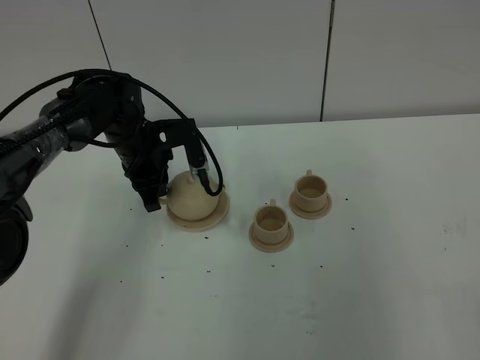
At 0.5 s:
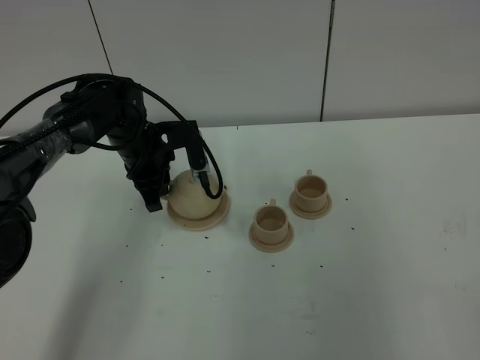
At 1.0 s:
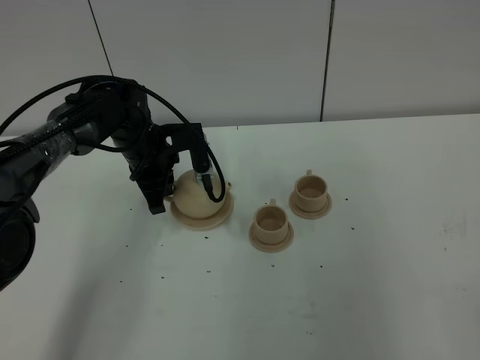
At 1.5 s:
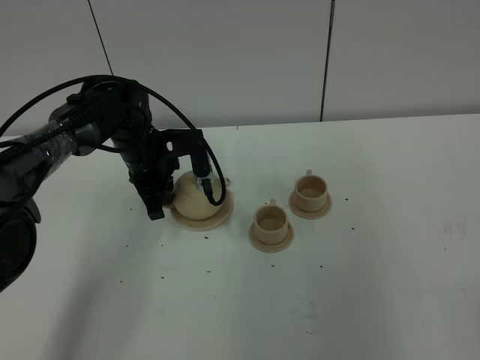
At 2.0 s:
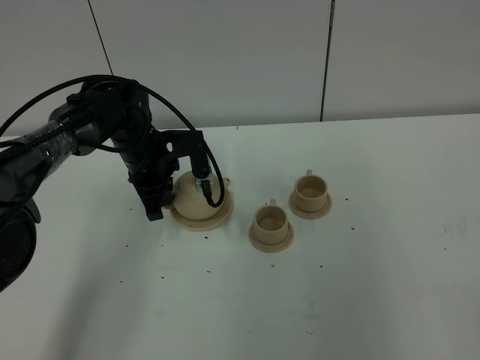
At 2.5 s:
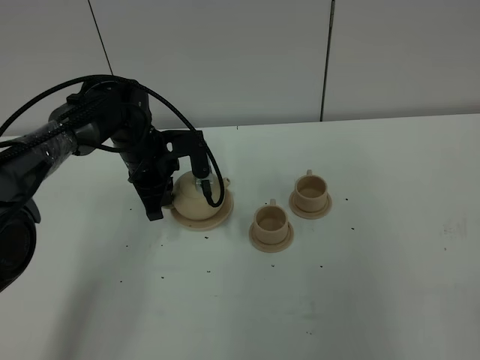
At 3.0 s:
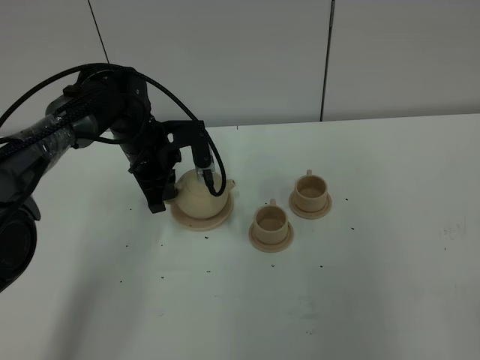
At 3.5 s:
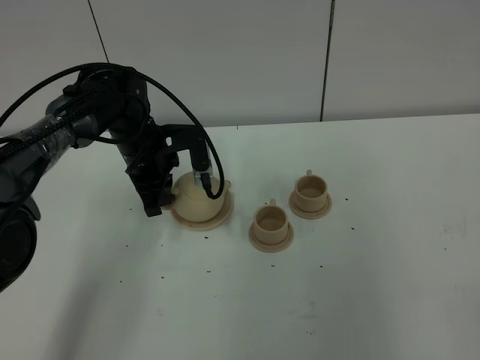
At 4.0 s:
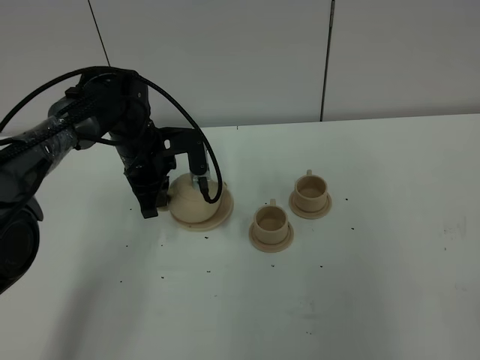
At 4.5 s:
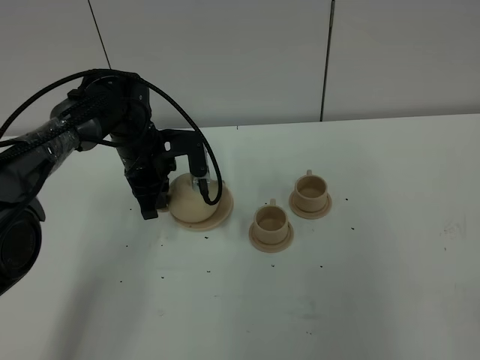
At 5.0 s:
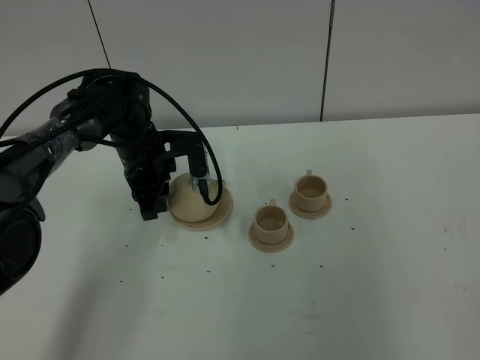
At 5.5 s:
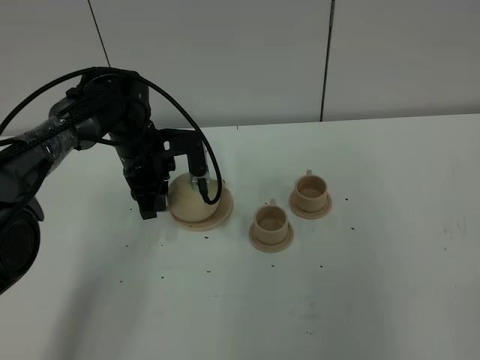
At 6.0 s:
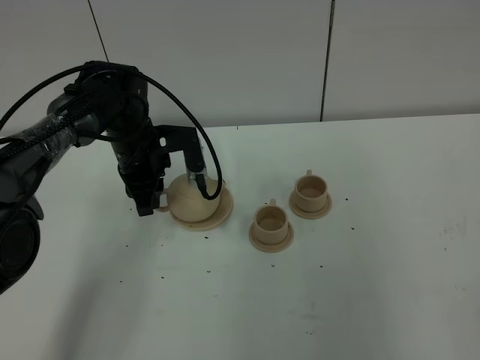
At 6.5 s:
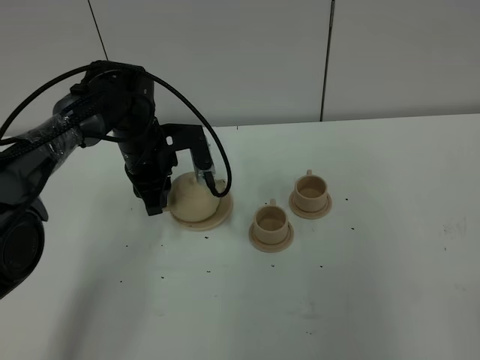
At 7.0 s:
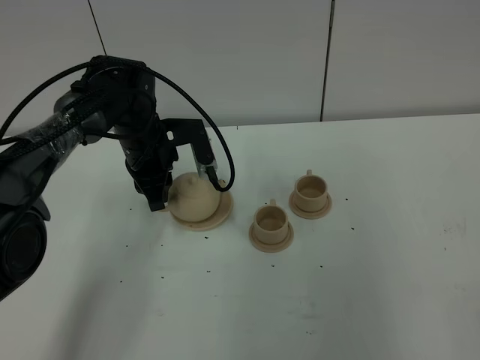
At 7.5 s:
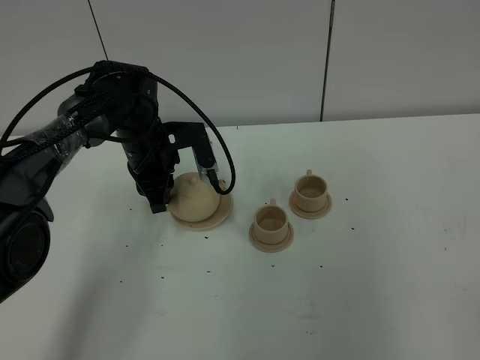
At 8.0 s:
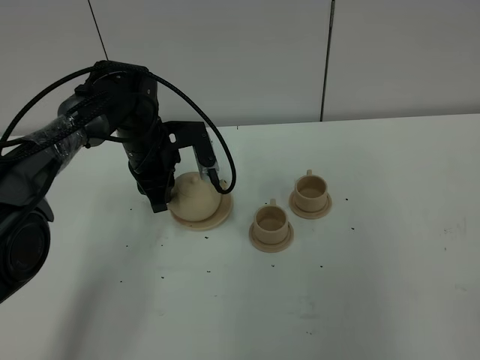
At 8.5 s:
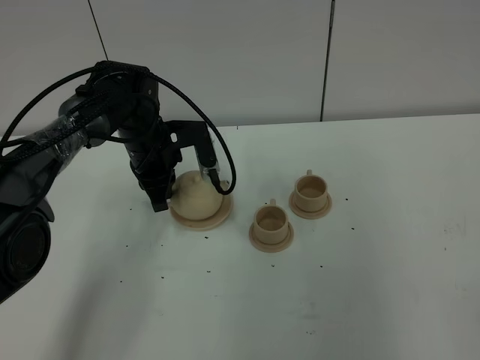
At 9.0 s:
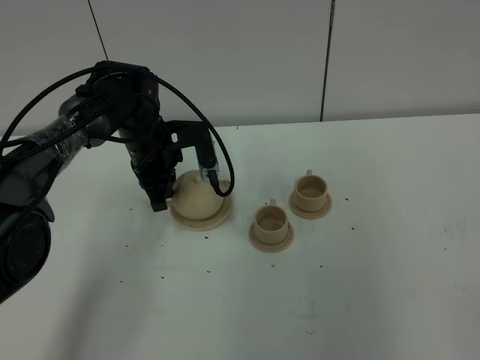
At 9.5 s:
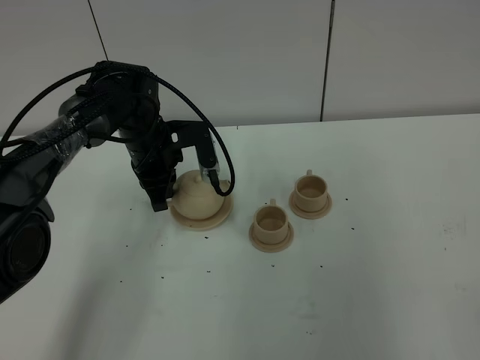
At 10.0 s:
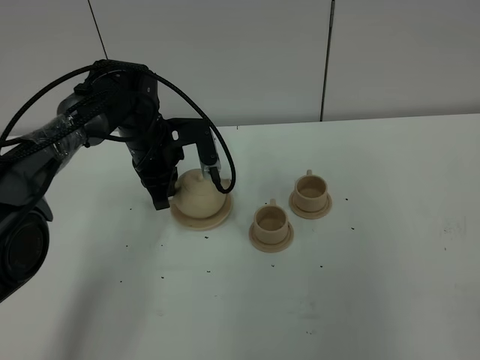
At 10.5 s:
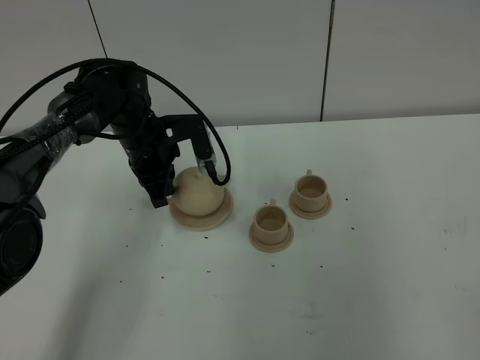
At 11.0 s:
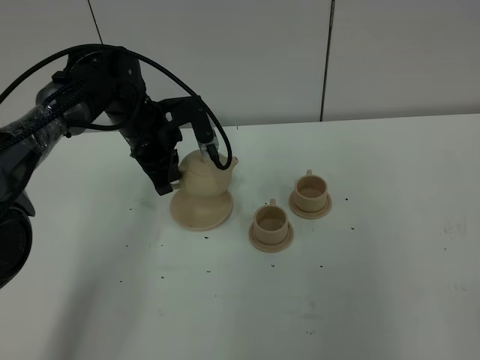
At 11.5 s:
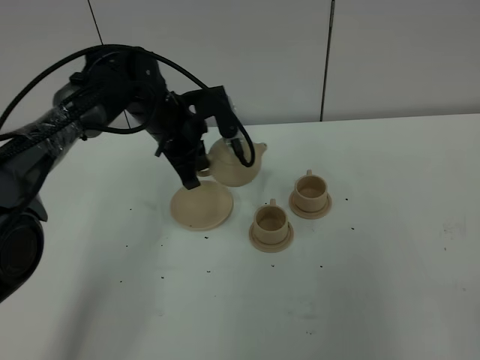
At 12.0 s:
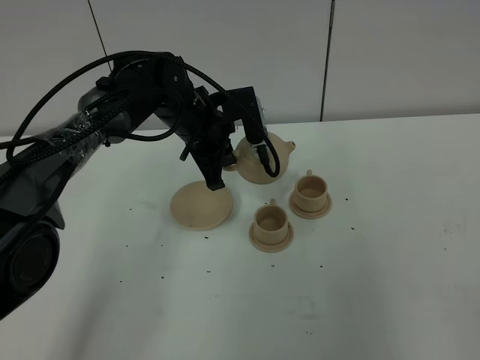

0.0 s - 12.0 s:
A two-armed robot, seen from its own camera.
Task of the whole recording: grasp the brown teapot and pour the tea into the two brown teacups one by one, put the brown teapot back in its original place.
Step, 0.0 s - 10.5 s: Pick up the teapot with the left gripper.
0.0 s - 2.0 s: The left gripper closes up.
2.0 s - 4.0 s: The grippers make only small movements.
4.0 s - 6.0 s: The left gripper opens.
6.0 s - 8.0 s: The grippers stay close to where they were, moving slightly.
8.0 s - 10.0 s: The left gripper closes up.
10.0 s - 12.0 s: The left gripper moves to the right, approximately 5 cm.

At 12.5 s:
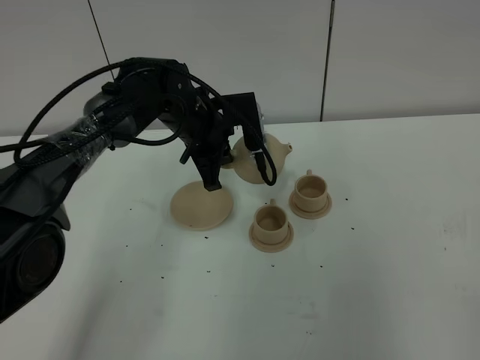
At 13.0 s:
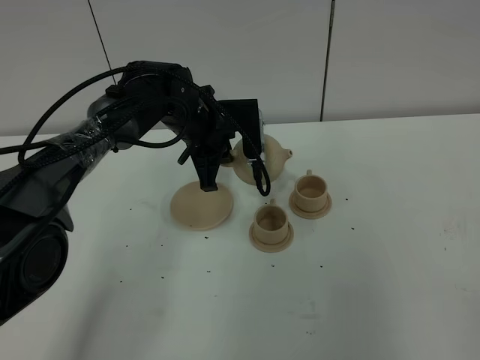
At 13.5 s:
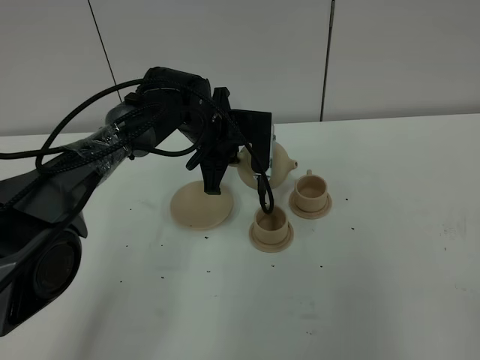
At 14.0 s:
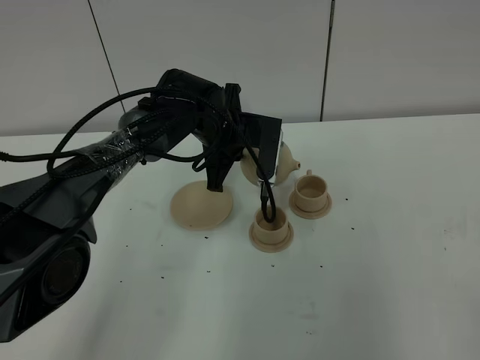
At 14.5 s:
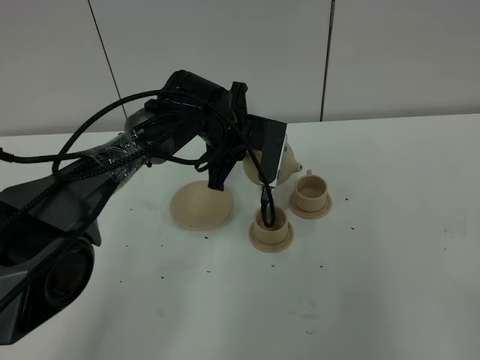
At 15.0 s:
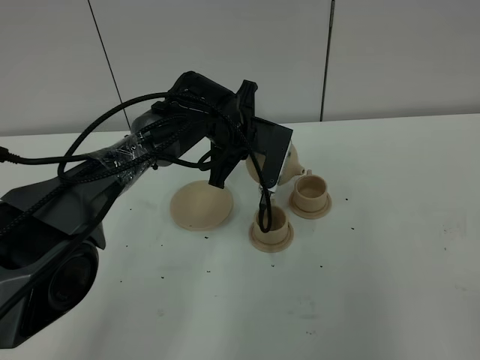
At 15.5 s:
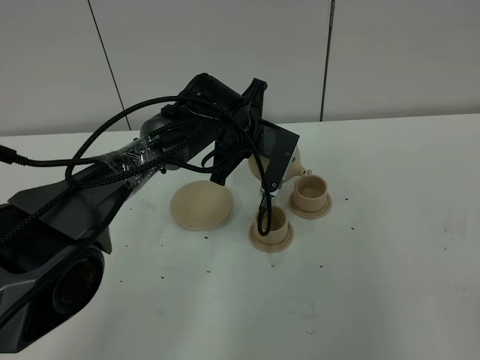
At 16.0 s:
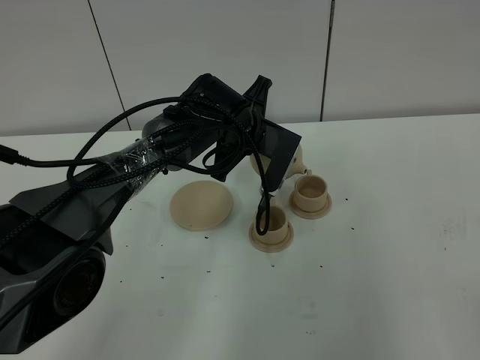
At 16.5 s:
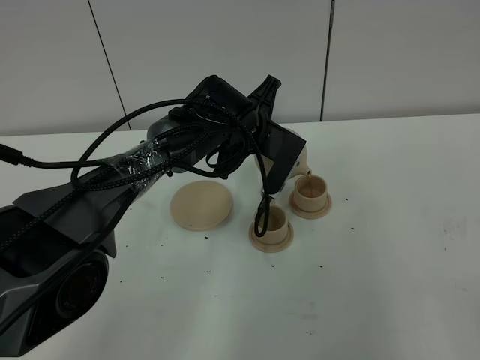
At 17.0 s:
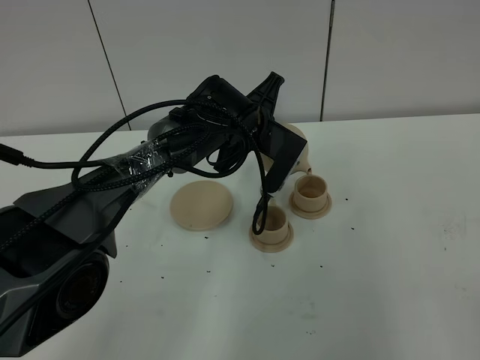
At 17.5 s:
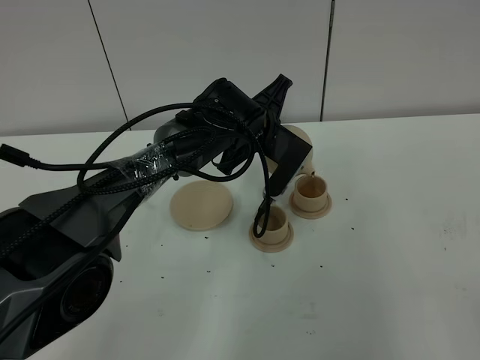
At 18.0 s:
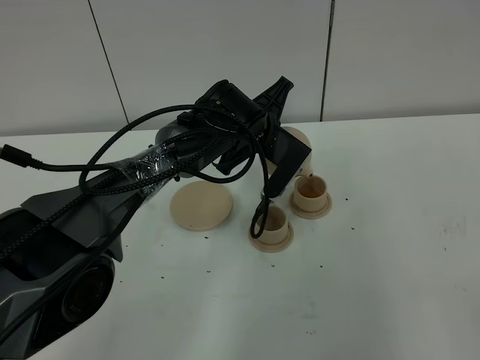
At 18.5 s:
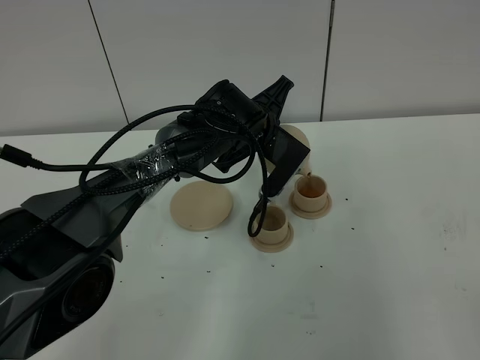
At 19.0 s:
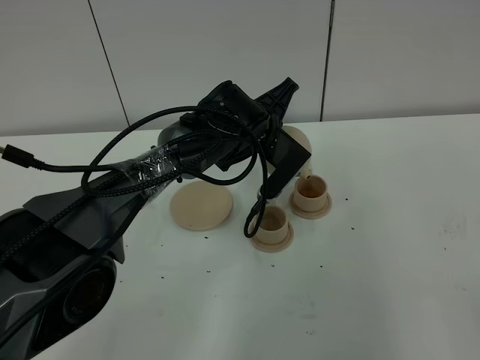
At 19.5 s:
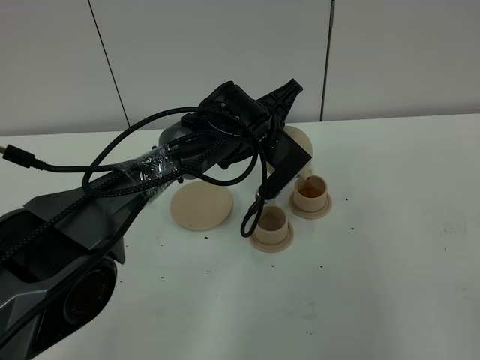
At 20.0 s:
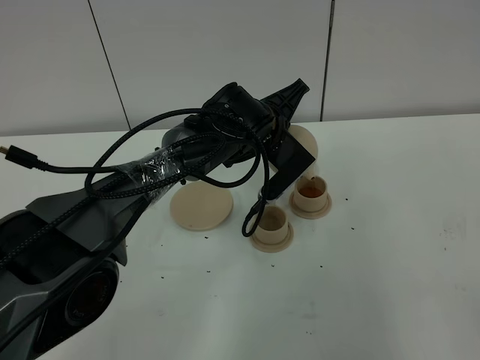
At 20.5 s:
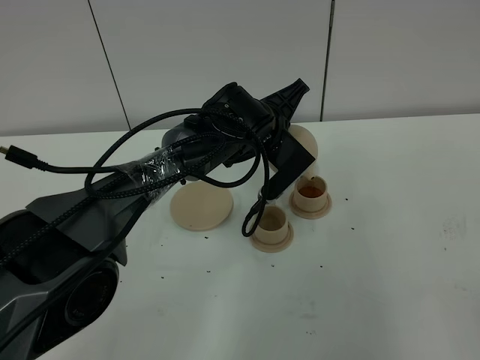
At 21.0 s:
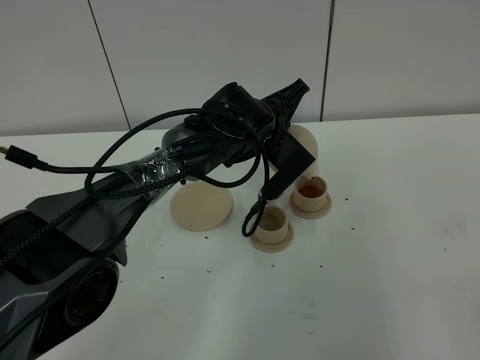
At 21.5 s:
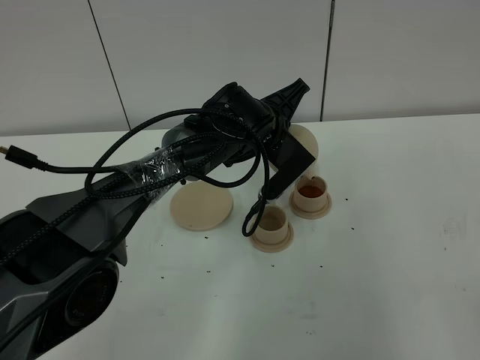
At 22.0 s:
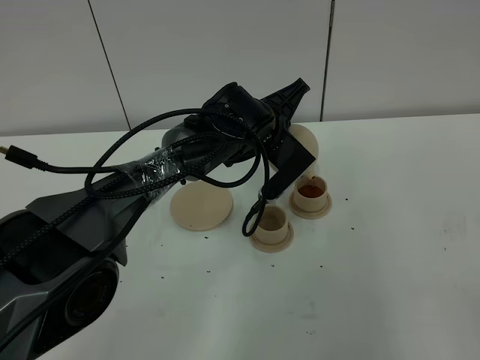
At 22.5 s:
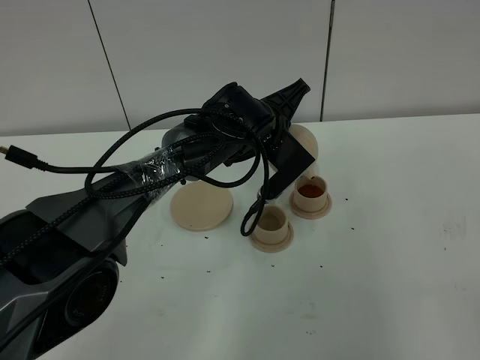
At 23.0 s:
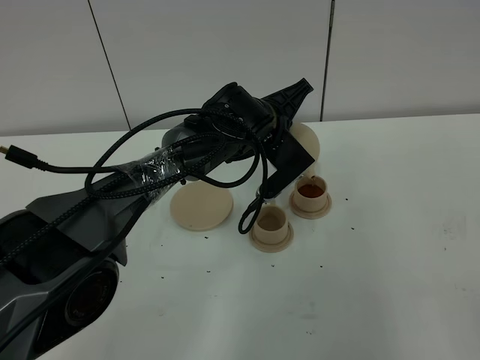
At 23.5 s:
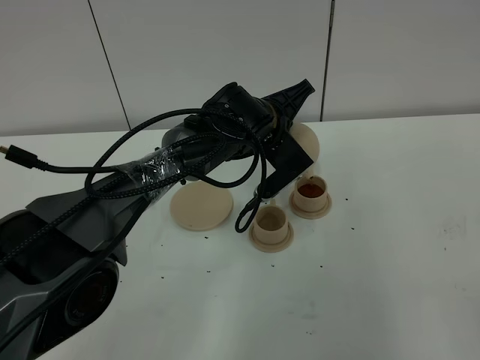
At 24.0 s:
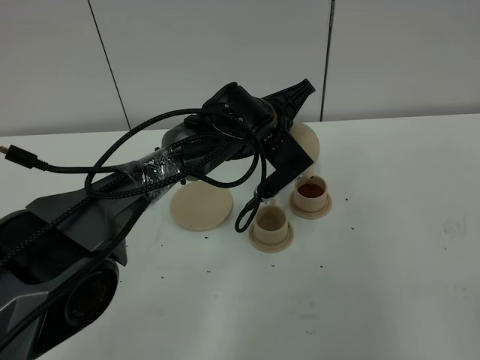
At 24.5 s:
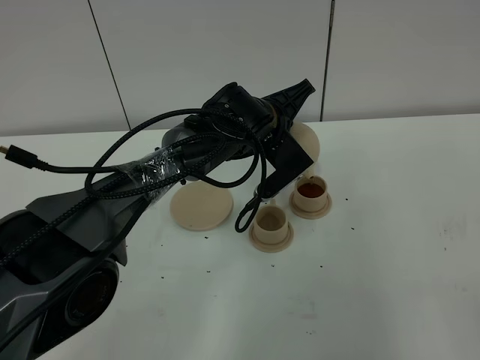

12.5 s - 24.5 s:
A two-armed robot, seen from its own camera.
Task of the whole recording: grasp the brown teapot and pour the tea into the two brown teacups one by one, put the brown teapot back in its original place.
16.5 s - 20.5 s: The grippers stay close to where they were, moving slightly.
20.5 s - 22.5 s: Neither gripper changes place.
22.5 s - 24.5 s: The two grippers keep their place.

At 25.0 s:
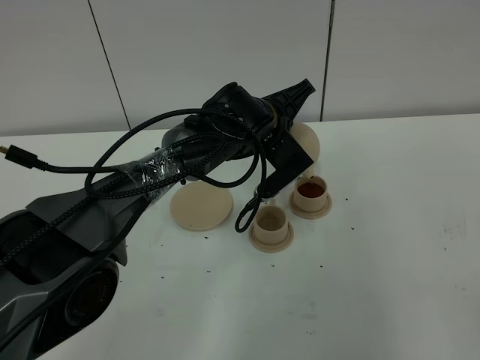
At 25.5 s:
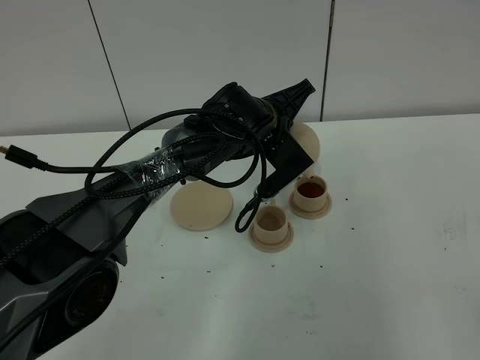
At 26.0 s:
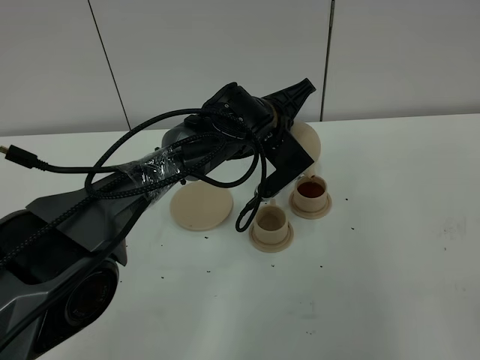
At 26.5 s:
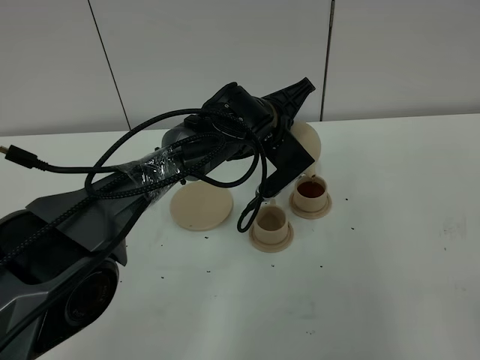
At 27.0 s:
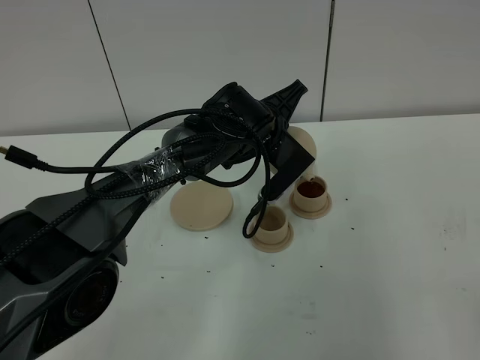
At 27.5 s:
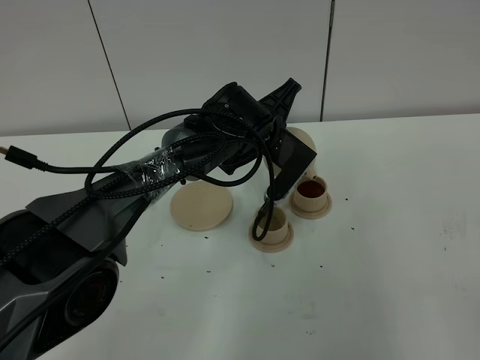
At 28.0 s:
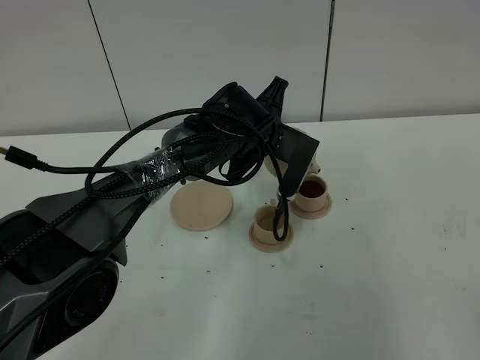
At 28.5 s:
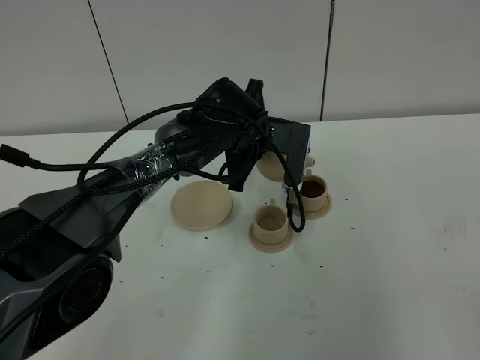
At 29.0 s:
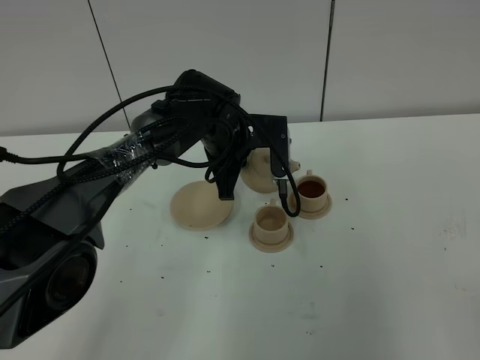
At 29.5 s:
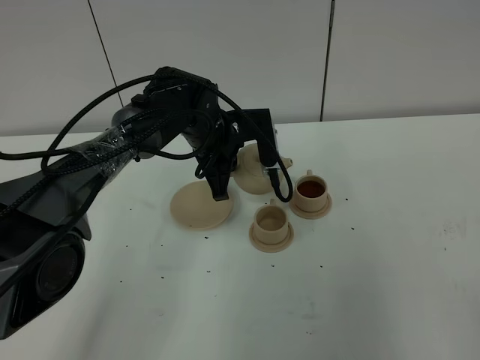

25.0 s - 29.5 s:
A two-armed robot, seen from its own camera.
Task of the whole recording: grasp the brown teapot and pour the tea into the two brown teacups one by one, put the brown teapot back in its original place.
25.0 s - 27.0 s: There are only small adjustments of the grippers.
27.0 s - 29.5 s: The left gripper heads to the left, covering roughly 5 cm.
